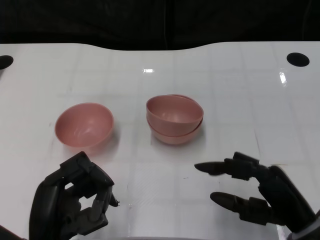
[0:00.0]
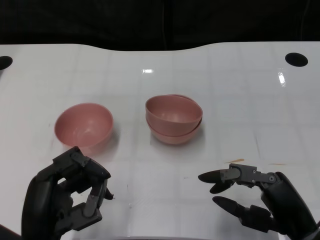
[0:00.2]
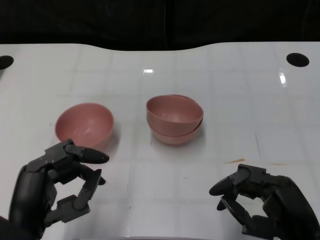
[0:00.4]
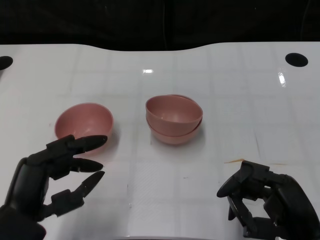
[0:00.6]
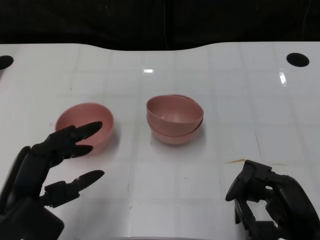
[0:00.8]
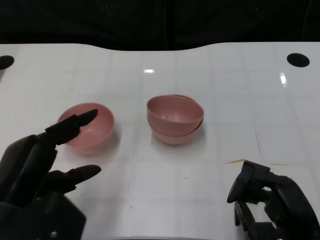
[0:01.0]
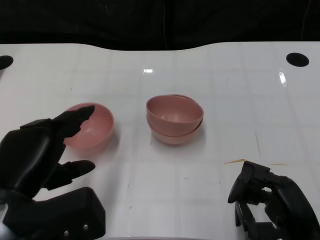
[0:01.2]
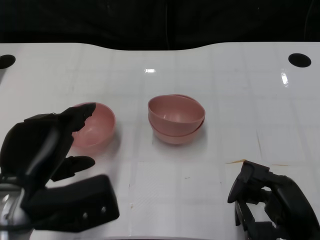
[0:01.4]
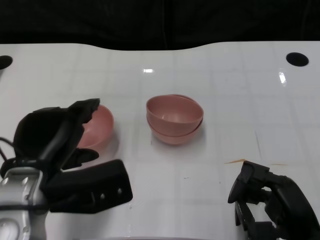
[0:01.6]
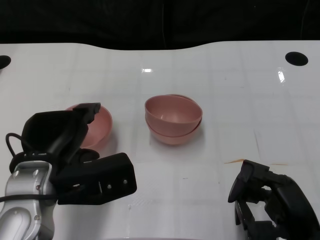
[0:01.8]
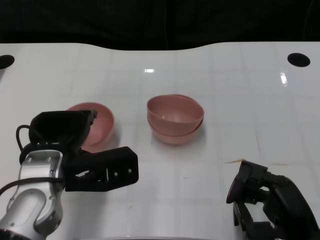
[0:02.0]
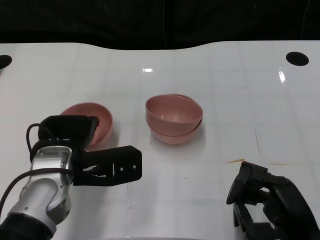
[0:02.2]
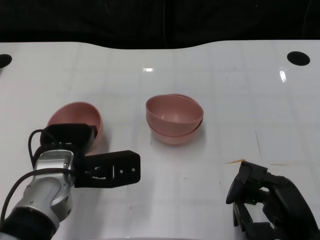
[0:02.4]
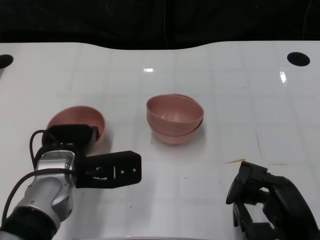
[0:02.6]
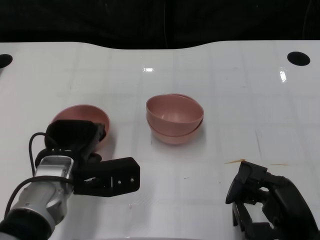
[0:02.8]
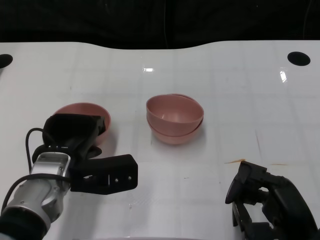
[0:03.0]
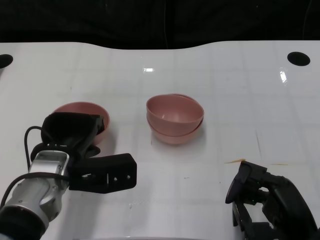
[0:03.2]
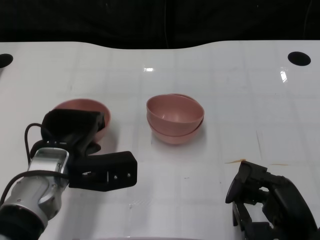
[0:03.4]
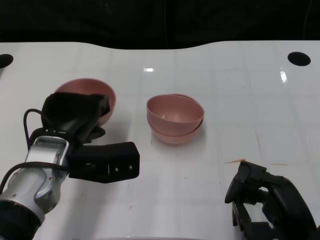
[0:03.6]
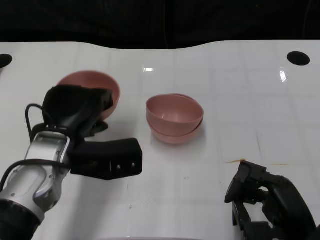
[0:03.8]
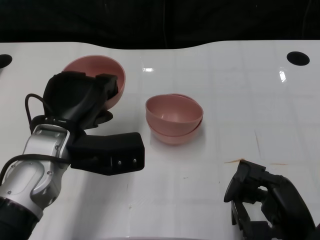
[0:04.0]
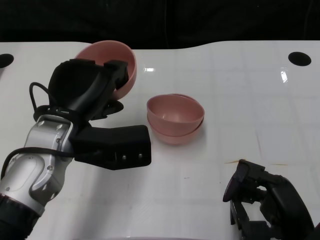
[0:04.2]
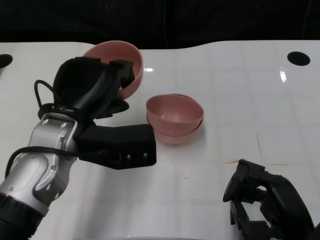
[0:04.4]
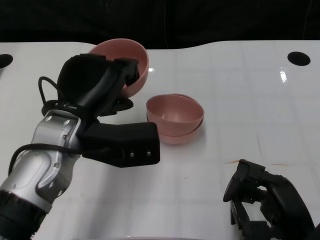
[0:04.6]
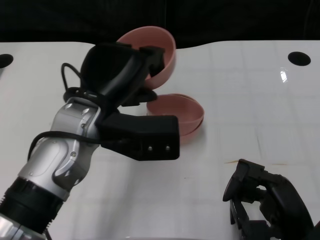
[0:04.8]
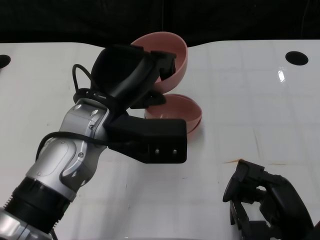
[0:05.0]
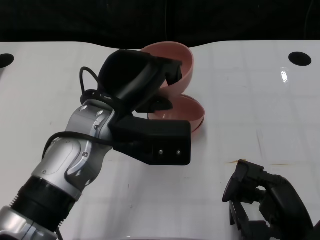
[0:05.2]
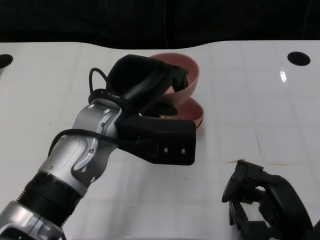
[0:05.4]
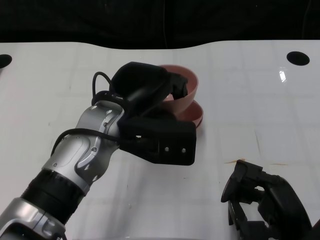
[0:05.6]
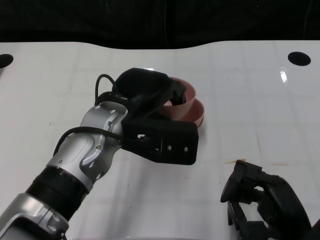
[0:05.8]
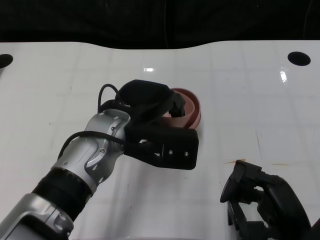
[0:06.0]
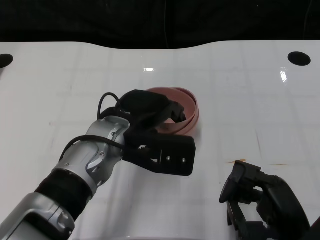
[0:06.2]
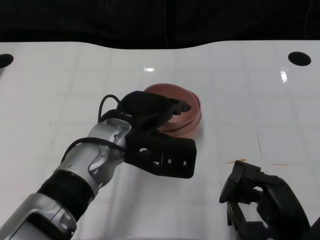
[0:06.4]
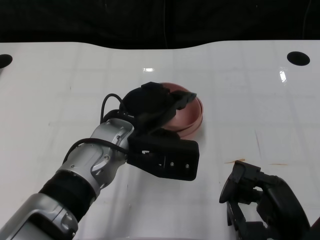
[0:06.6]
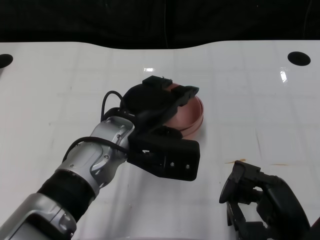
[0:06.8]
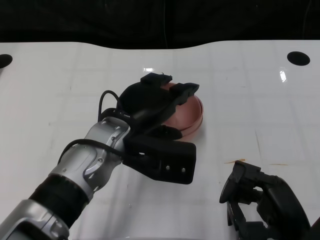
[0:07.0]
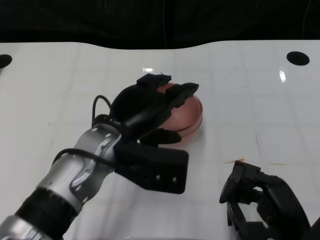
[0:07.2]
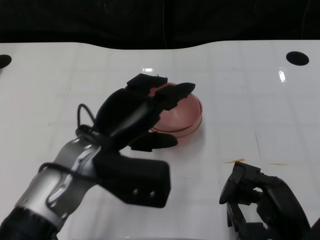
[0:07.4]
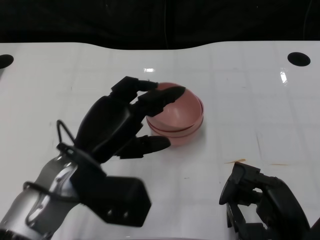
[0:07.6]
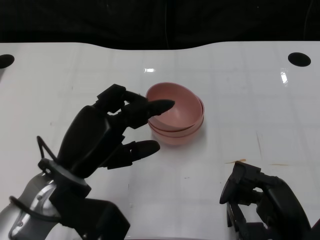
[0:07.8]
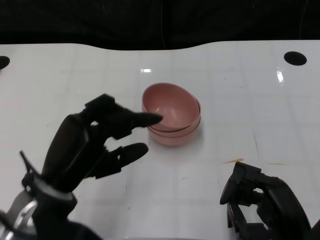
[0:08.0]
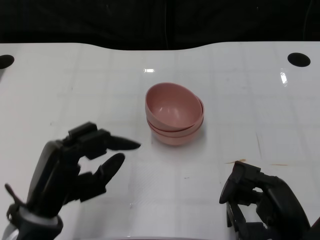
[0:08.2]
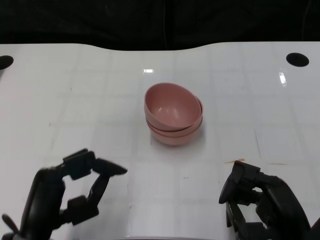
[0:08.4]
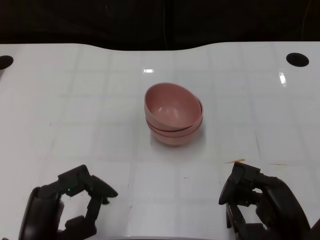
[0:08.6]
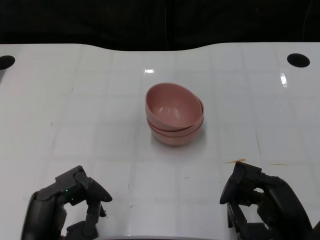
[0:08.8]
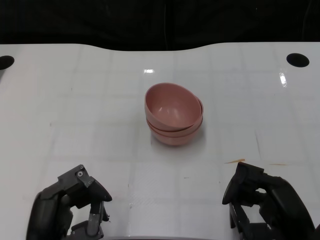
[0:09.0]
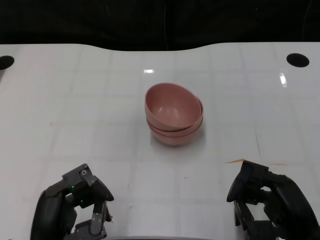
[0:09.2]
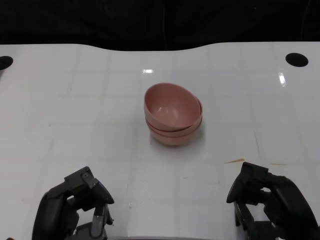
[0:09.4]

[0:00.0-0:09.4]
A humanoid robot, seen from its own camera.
Task of the whole recording: Pick up the bowl on one side of the table and place it on top of the middle bowl, then pick up the bowl on the other side of the table and place it on top of the middle bowls.
Step, 0:00.0 to 0:03.0: Grasp the bowl on the left with the left gripper.
Step, 0:03.2 to 0:07.6: Place the bowl on the left onto the bowl in the middle with left gripper.
0:00.0 to 0:01.6: The left hand is displaced upward and forward by roughly 10 cm.
0:01.6 to 0:03.2: The left hand goes some 10 cm forward and downward.
0:03.2 to 0:04.8: The left hand goes some 10 cm upward and to the right.
0:04.8 to 0:06.2: The left hand moves downward, about 5 cm.
0:06.2 to 0:07.8: The left hand goes approximately 10 cm to the left and backward.
0:07.8 to 0:09.4: The left hand moves backward and downward, approximately 10 cm.

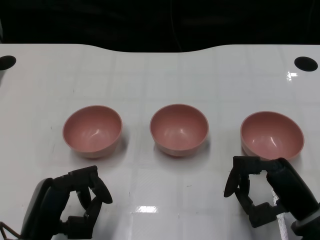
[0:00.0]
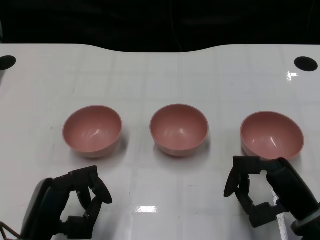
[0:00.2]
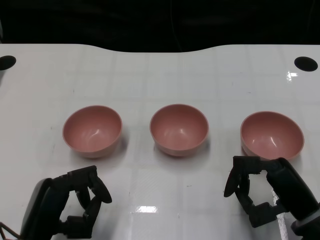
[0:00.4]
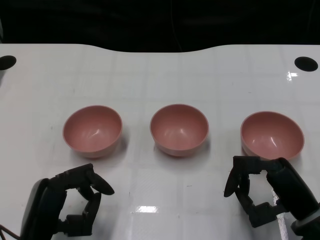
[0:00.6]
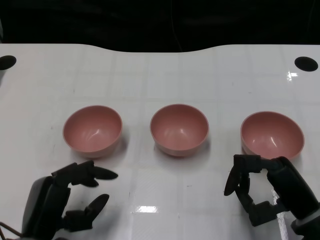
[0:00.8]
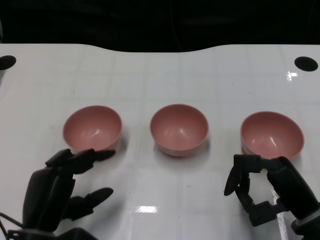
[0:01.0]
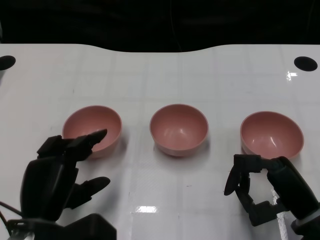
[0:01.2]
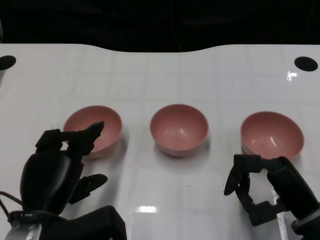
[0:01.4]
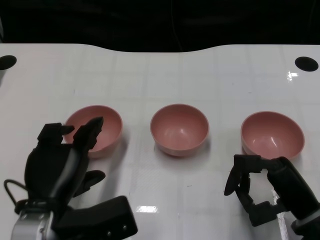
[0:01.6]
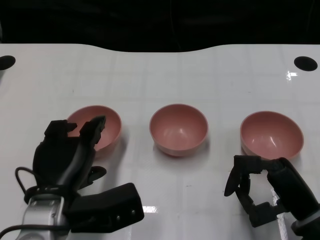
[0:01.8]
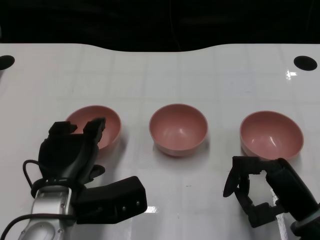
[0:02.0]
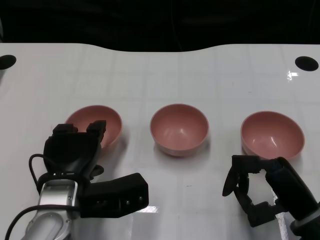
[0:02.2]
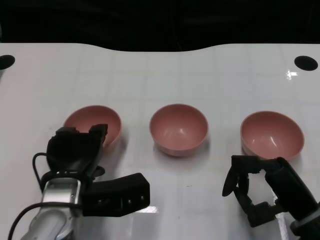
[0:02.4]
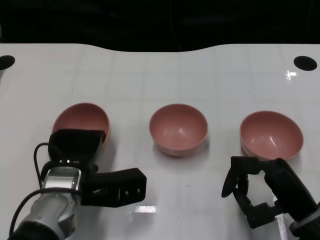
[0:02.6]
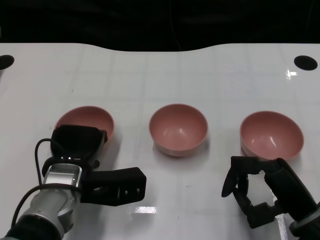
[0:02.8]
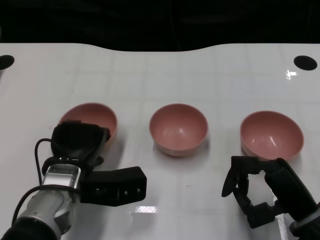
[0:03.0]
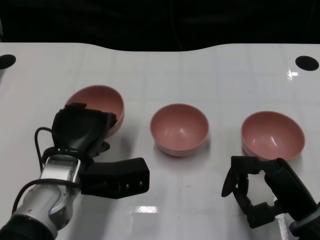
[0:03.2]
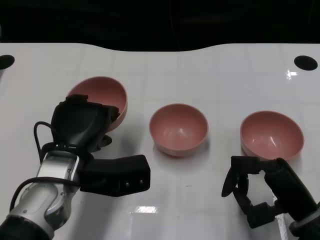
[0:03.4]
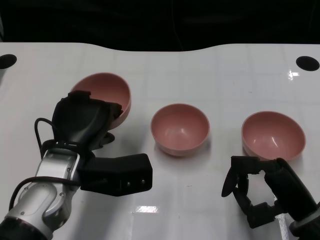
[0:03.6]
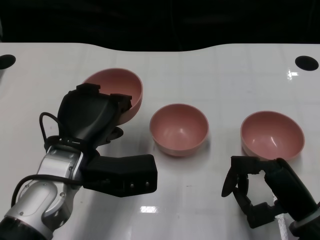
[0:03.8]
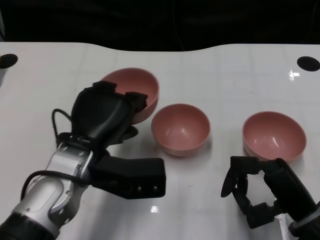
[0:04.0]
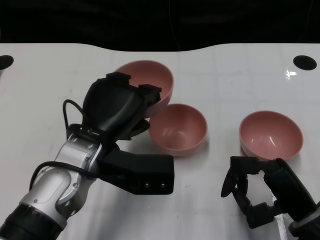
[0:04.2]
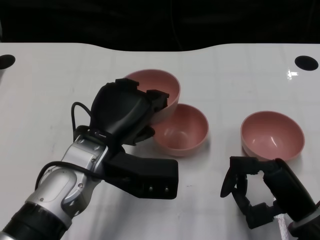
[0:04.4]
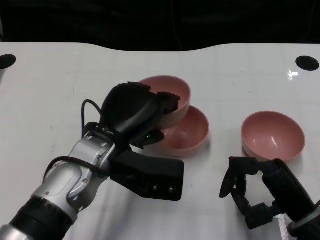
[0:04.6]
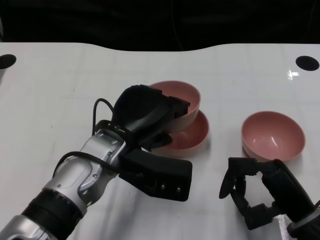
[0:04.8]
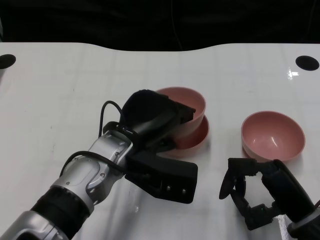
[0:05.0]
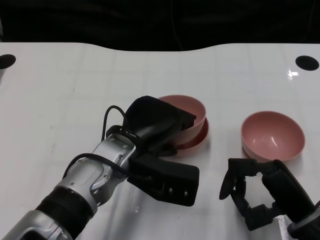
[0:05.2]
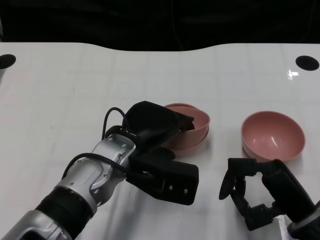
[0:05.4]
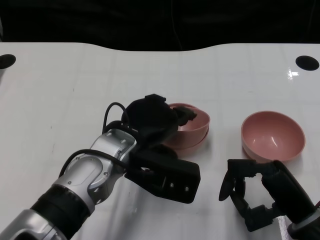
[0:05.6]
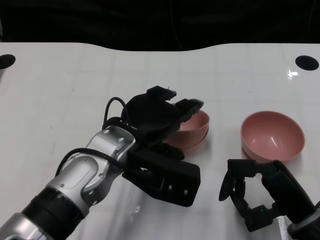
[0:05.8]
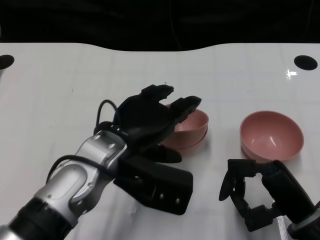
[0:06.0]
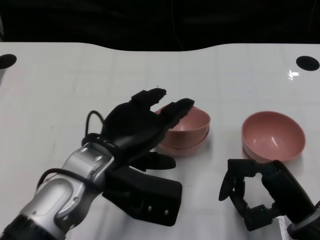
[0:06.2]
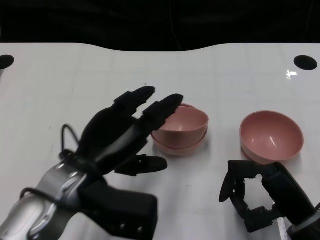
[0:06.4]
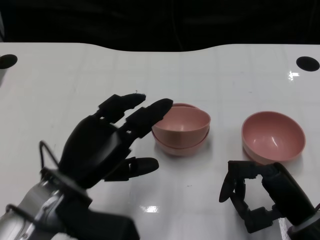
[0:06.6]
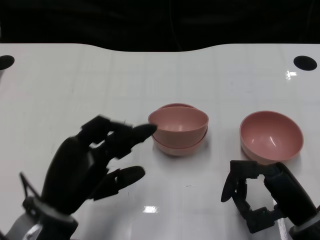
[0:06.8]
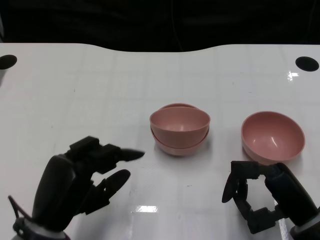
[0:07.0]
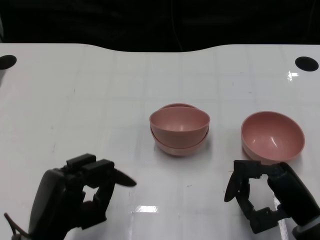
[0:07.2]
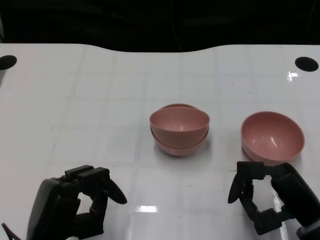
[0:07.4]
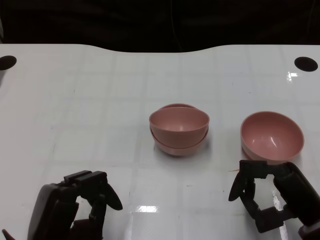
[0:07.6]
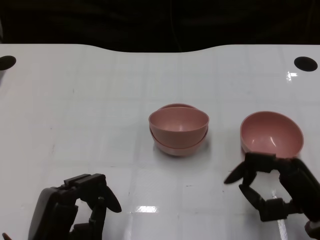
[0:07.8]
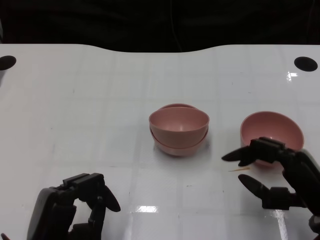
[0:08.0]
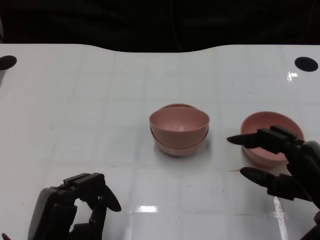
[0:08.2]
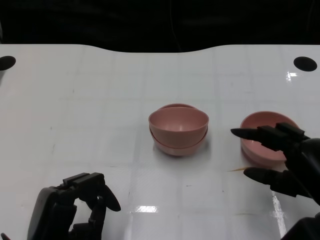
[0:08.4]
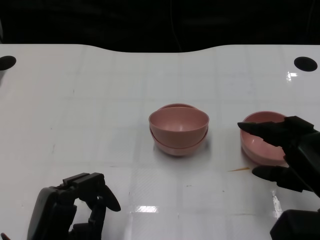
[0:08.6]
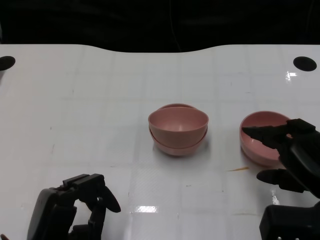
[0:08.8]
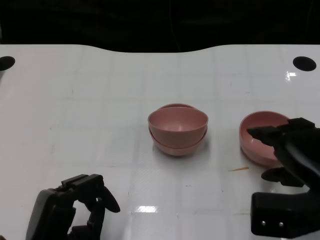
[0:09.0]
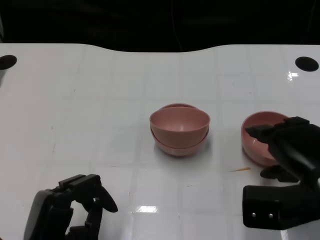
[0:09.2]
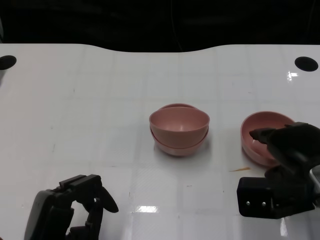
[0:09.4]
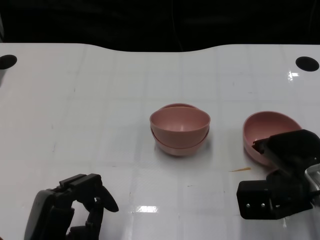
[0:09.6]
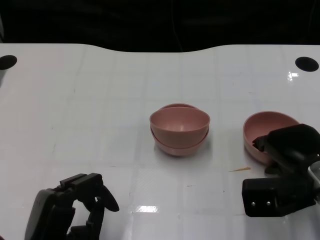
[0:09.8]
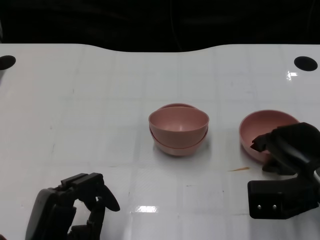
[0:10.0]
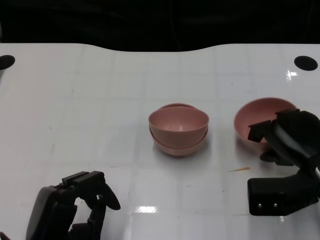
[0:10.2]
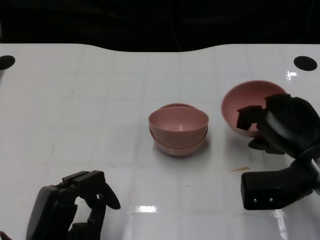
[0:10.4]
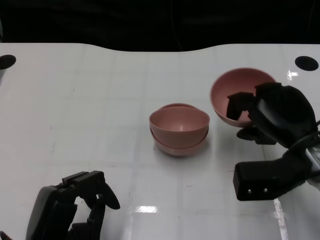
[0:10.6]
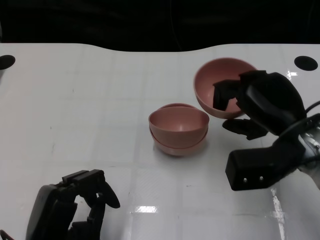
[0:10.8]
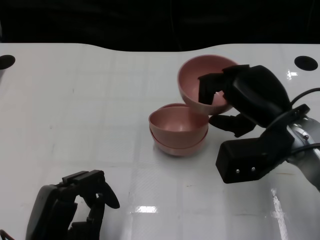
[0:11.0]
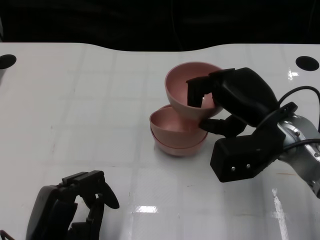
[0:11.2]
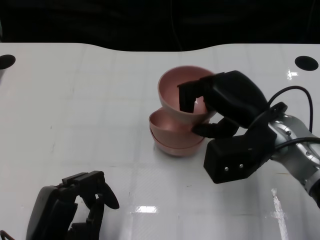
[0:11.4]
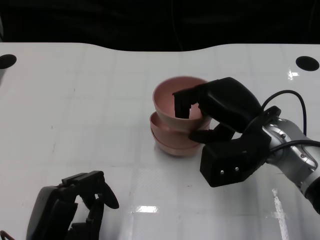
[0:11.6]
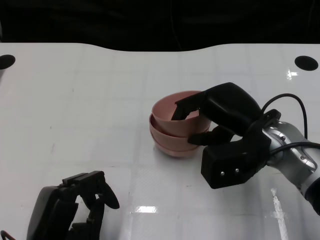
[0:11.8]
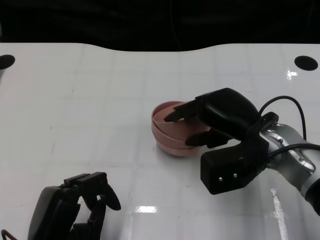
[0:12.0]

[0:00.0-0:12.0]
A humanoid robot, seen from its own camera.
Task of the whole recording: Pick up the bowl on one side of the table and place it on top of the middle bowl, then pick up the bowl on the other side of the table and place it on top of the middle bowls.
Step, 0:00.8 to 0:02.8: Grasp the bowl on the left with the left gripper.
Step, 0:03.0 to 0:06.0: Place the bowl on the left onto the bowl in the middle with left gripper.
Step, 0:06.2 to 0:09.8: Grasp the bowl on the right with the right gripper.
0:01.6 to 0:03.0: The left hand travels forward by roughly 5 cm.
0:03.0 to 0:04.4: The left hand moves upward, approximately 5 cm.
0:06.0 to 0:07.6: The left hand shifts approximately 20 cm backward, to the left and downward.
0:07.6 to 0:09.0: The right hand travels upward by roughly 5 cm.
0:09.0 to 0:10.4: The right hand is displaced forward by roughly 5 cm.
0:10.4 to 0:12.0: The right hand goes about 5 cm to the left.
